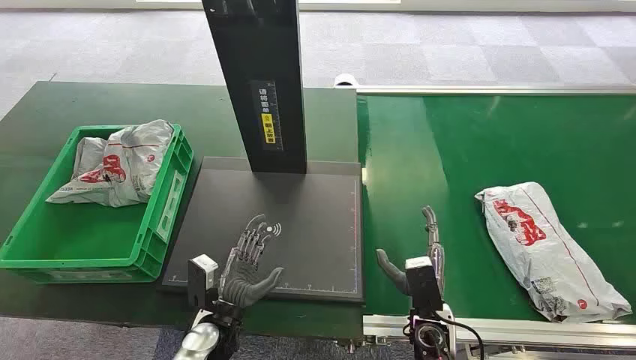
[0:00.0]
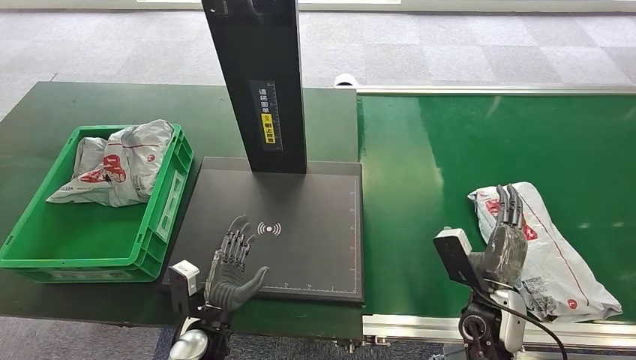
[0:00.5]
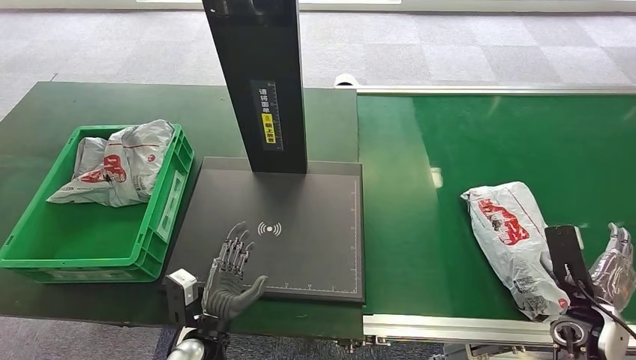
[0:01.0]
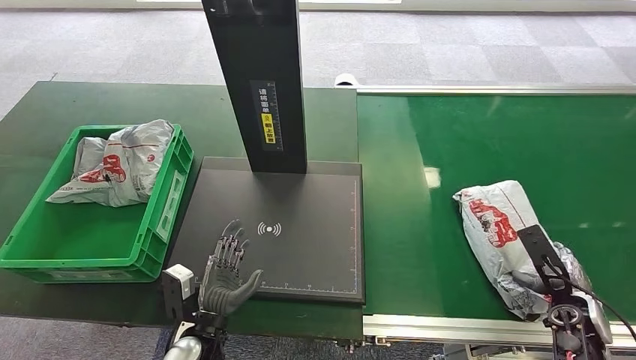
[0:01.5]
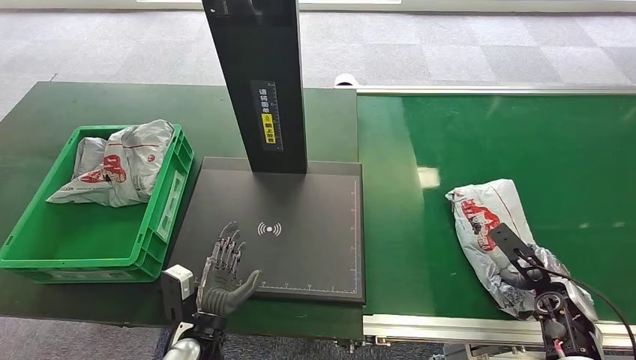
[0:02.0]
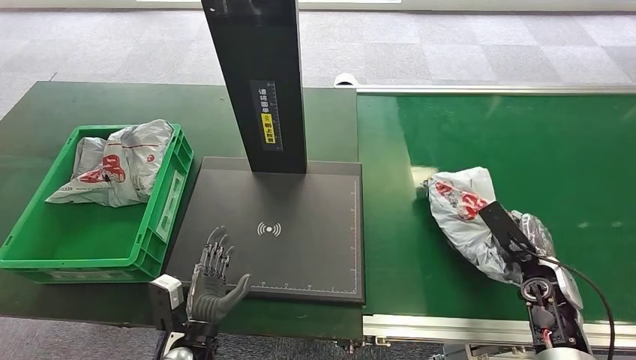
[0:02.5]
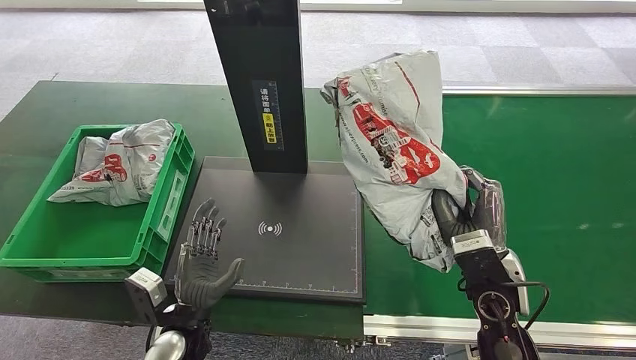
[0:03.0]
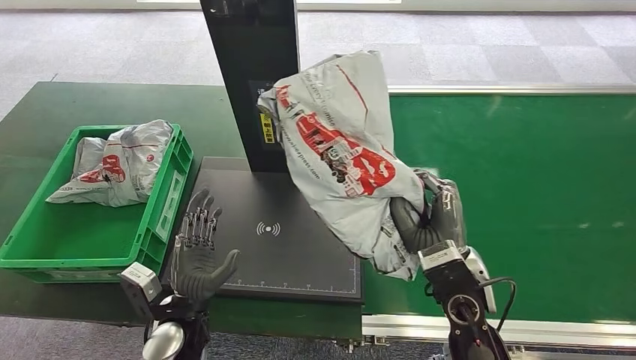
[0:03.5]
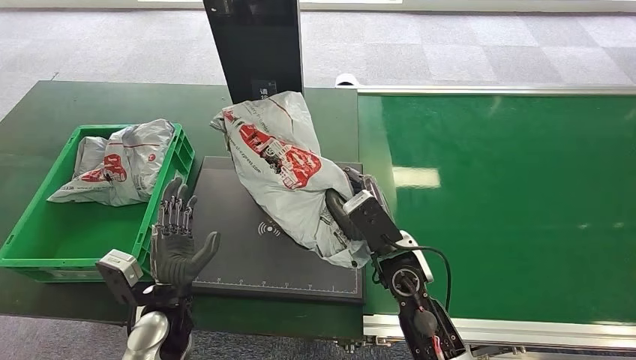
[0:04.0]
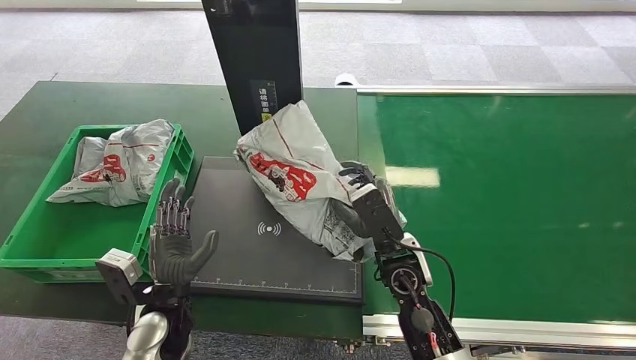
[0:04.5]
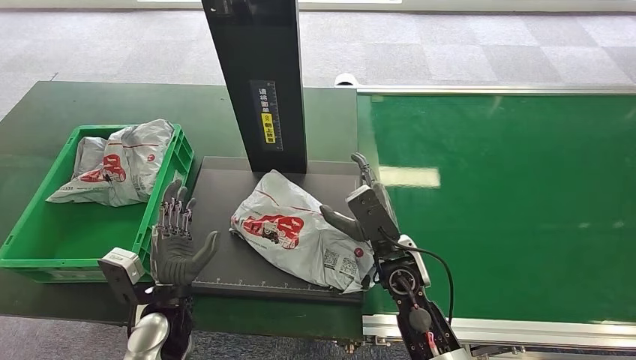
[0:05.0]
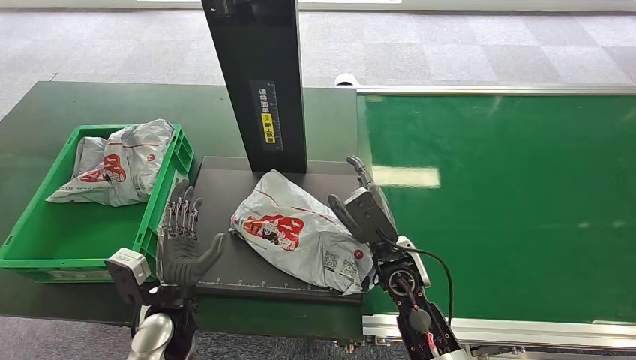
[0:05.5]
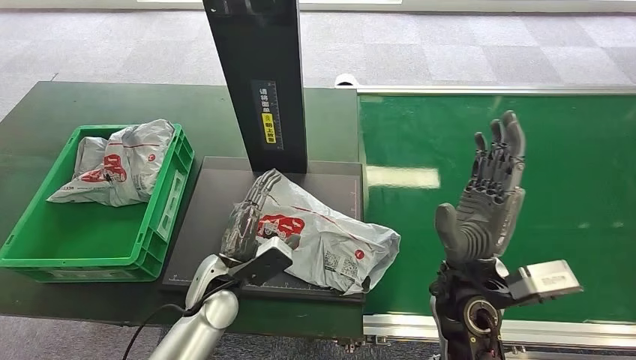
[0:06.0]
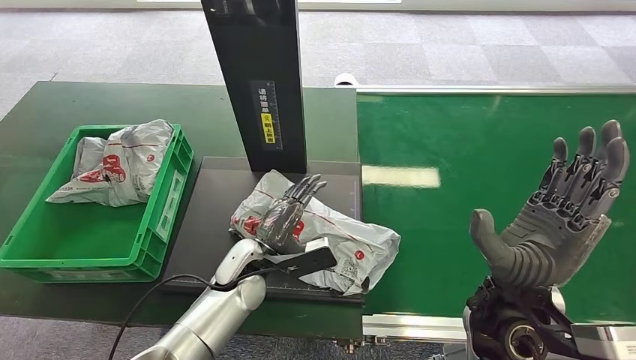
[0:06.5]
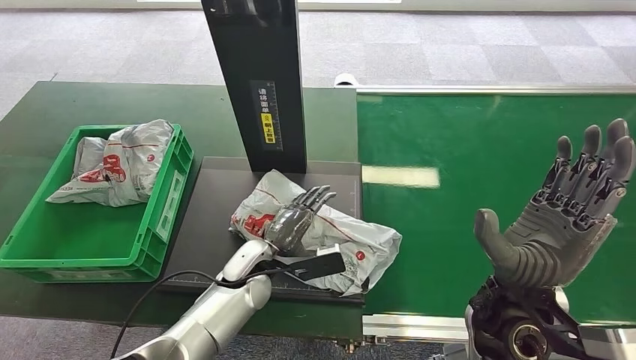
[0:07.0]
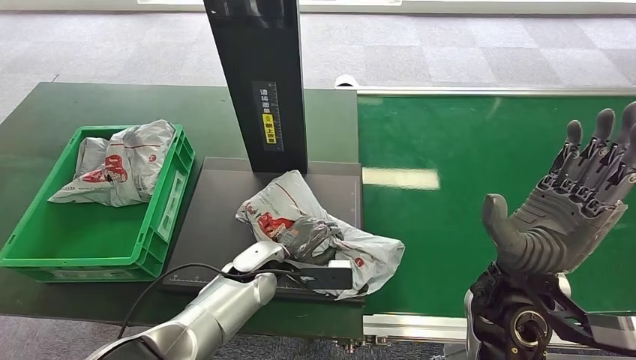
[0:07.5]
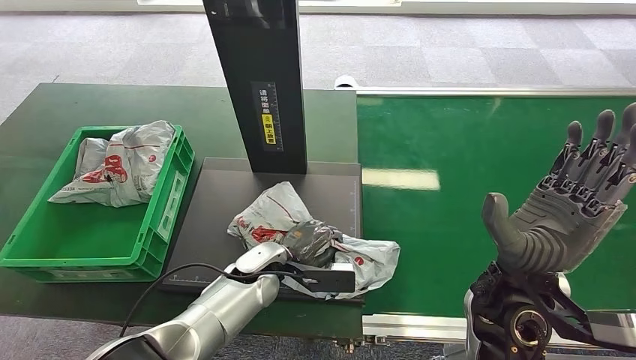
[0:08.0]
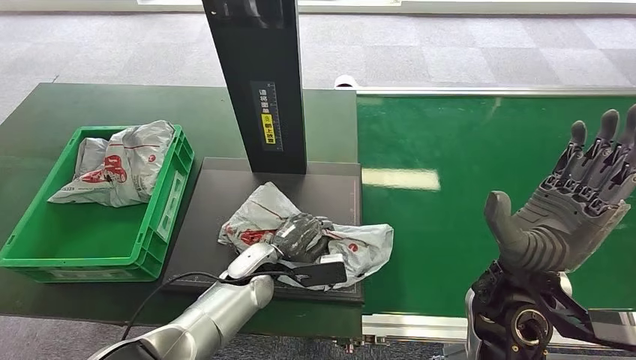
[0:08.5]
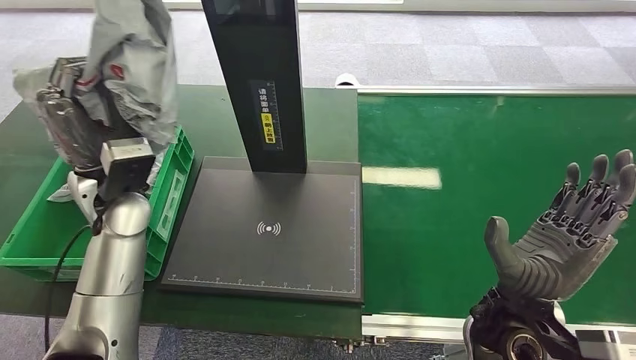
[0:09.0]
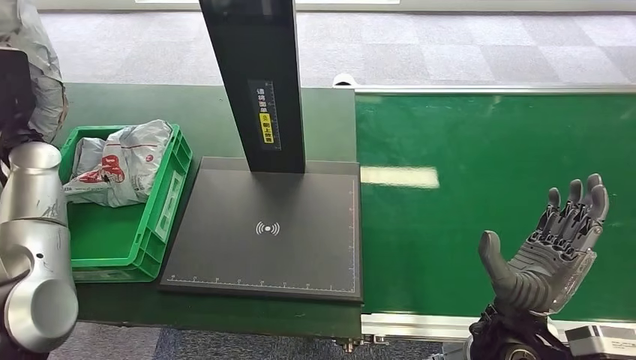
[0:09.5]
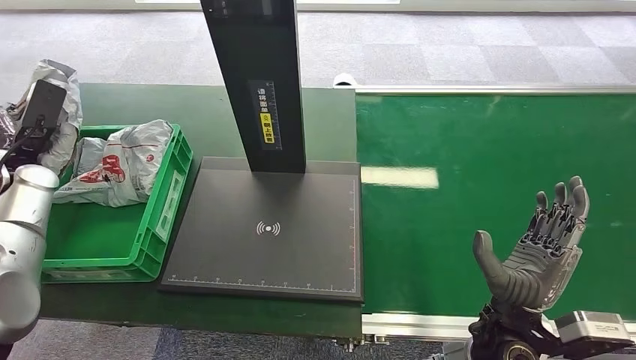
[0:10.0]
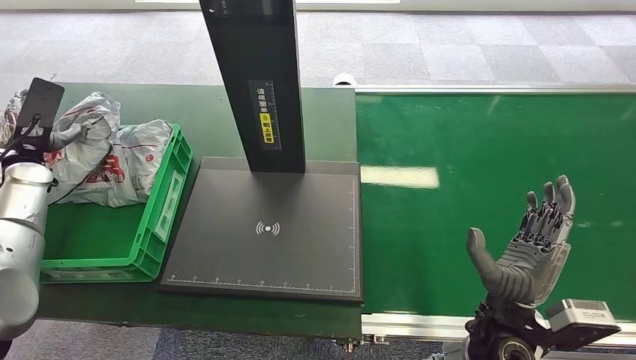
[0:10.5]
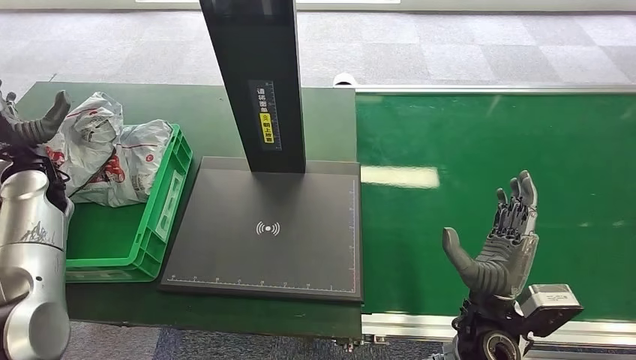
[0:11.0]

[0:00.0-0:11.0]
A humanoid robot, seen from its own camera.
Step, 0:00.0 to 0:02.5: Pick up the package from the conveyor belt.
Step, 0:03.0 to 0:05.5: Place the package onto the inbound machine.
Step, 0:06.0 to 0:08.5: Pick up the package from the inbound machine.
Step, 0:09.0 to 0:11.0: Place the package into the parcel locker.
